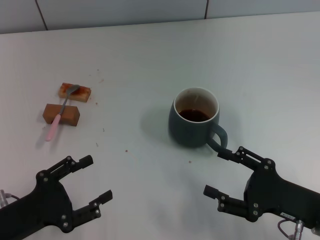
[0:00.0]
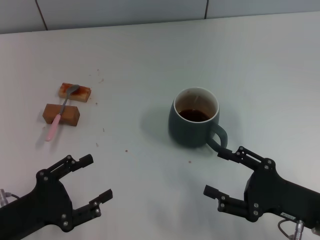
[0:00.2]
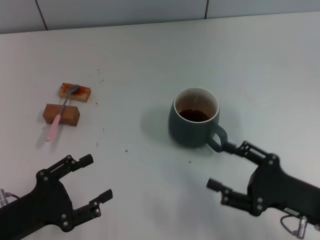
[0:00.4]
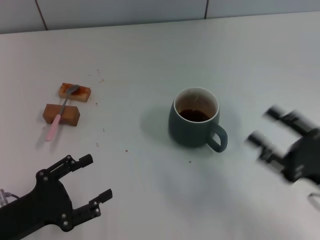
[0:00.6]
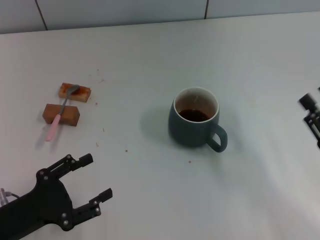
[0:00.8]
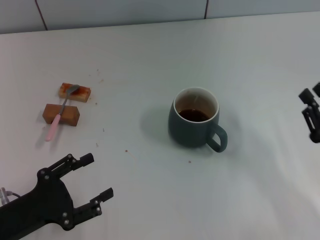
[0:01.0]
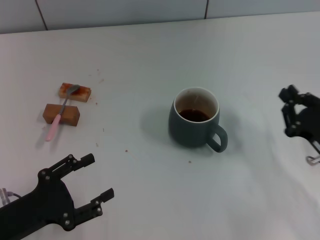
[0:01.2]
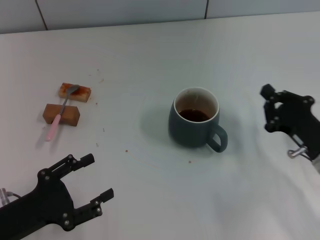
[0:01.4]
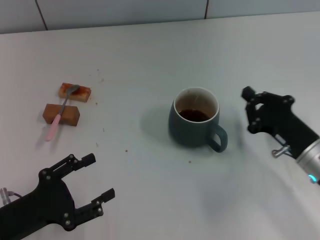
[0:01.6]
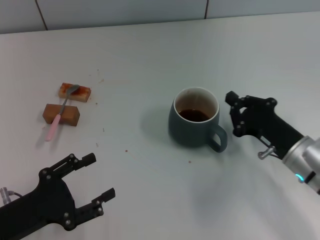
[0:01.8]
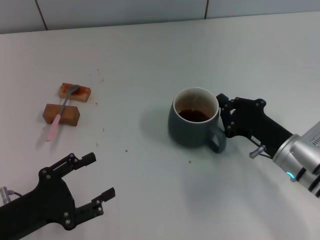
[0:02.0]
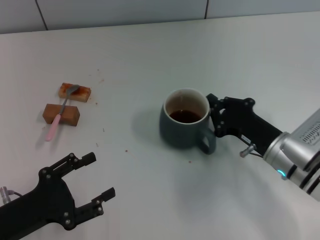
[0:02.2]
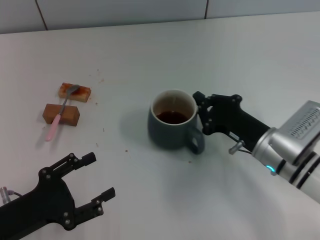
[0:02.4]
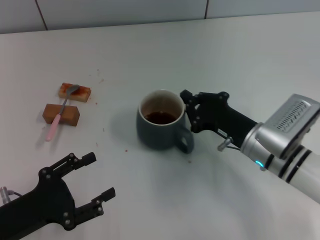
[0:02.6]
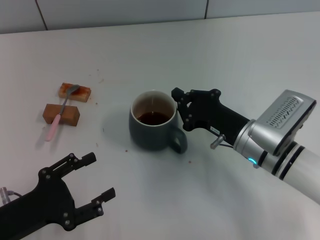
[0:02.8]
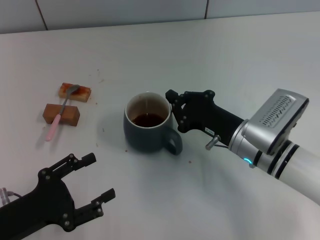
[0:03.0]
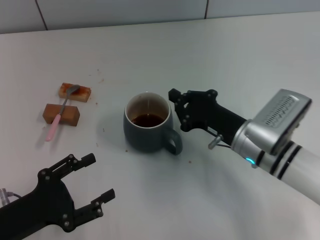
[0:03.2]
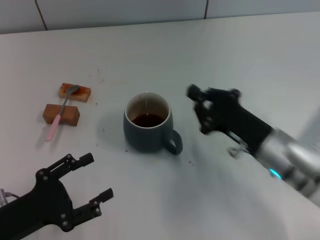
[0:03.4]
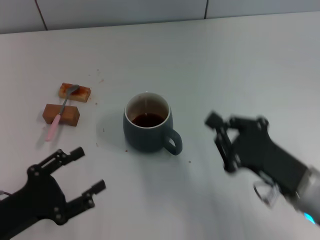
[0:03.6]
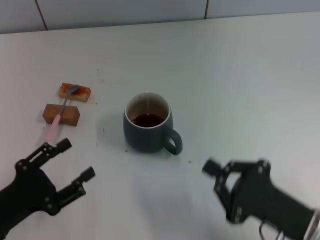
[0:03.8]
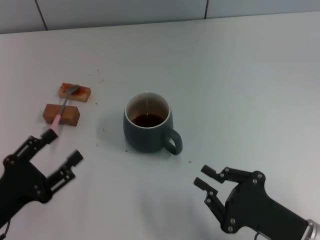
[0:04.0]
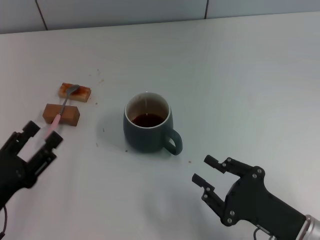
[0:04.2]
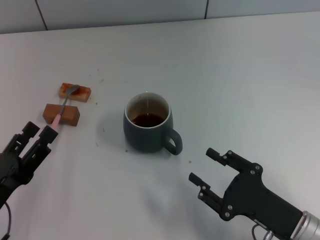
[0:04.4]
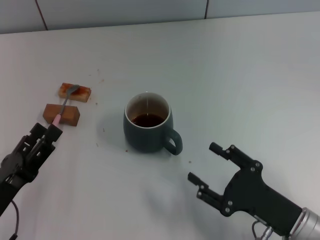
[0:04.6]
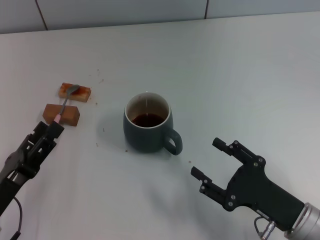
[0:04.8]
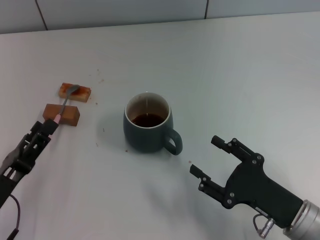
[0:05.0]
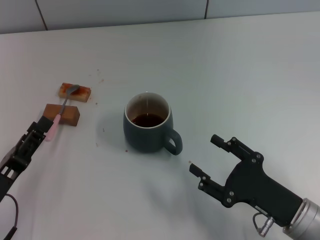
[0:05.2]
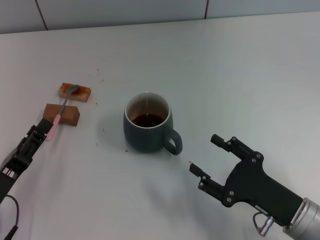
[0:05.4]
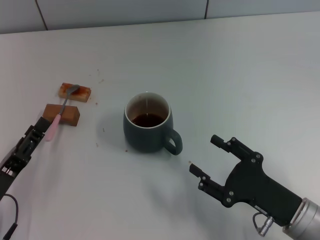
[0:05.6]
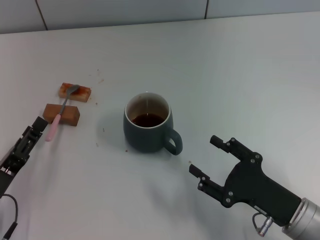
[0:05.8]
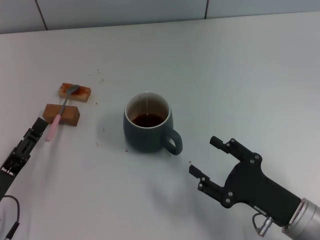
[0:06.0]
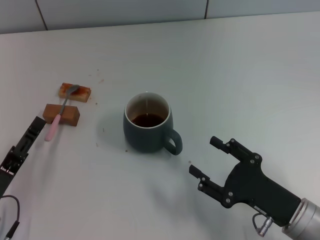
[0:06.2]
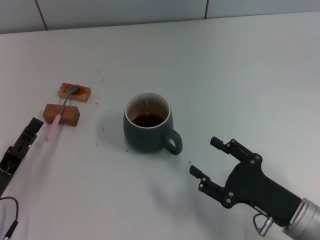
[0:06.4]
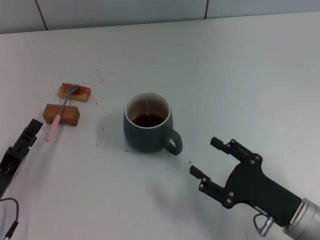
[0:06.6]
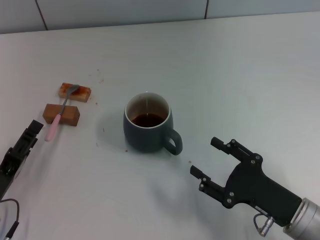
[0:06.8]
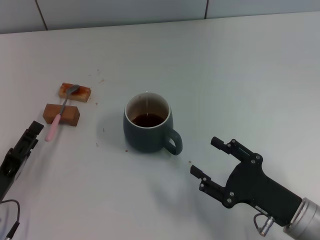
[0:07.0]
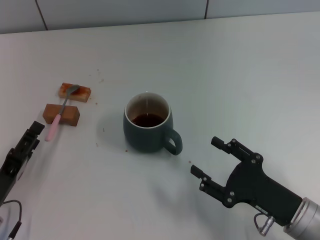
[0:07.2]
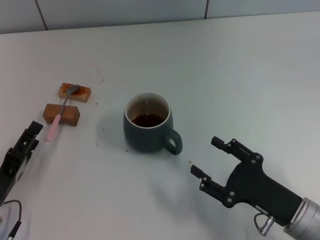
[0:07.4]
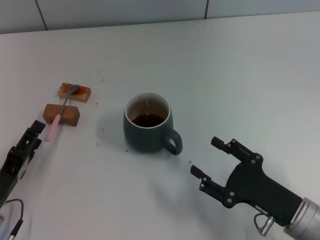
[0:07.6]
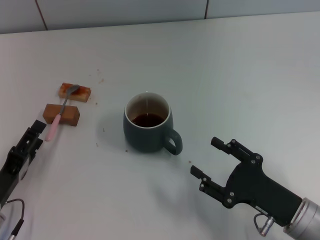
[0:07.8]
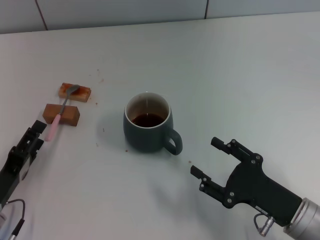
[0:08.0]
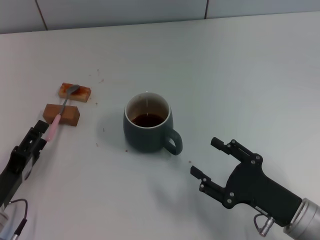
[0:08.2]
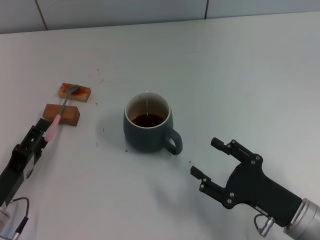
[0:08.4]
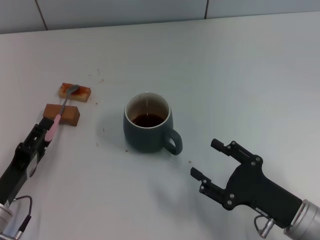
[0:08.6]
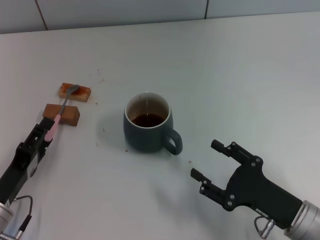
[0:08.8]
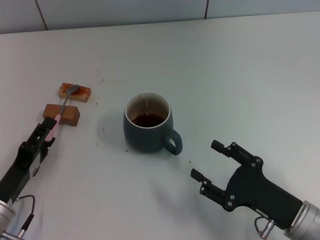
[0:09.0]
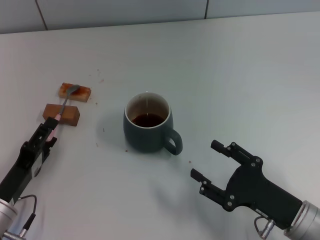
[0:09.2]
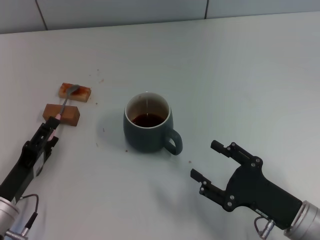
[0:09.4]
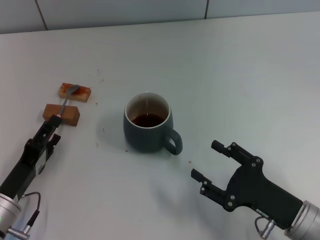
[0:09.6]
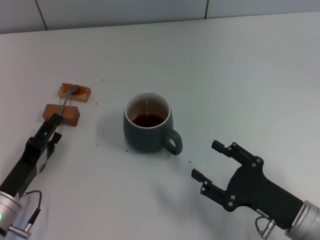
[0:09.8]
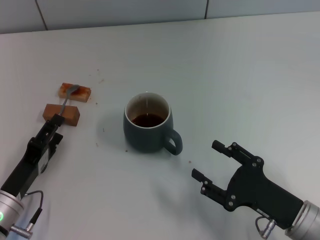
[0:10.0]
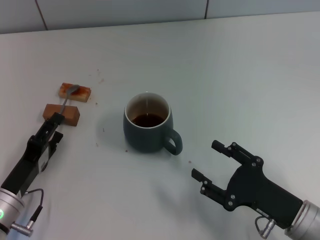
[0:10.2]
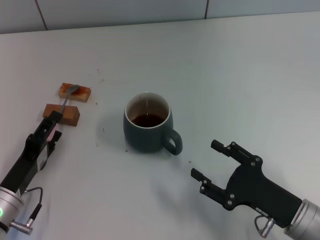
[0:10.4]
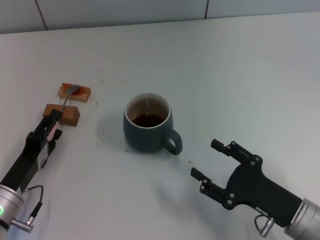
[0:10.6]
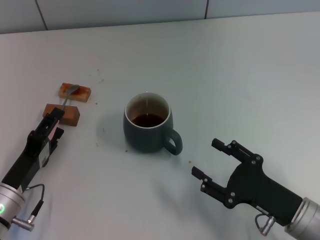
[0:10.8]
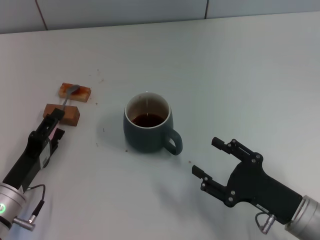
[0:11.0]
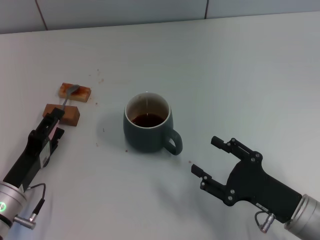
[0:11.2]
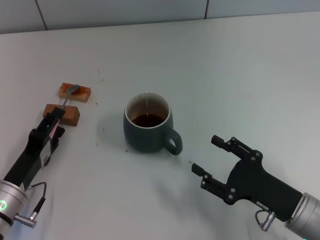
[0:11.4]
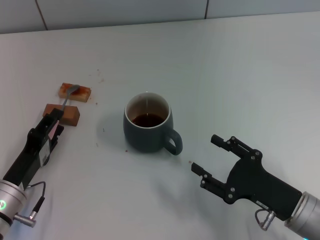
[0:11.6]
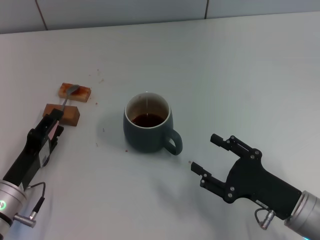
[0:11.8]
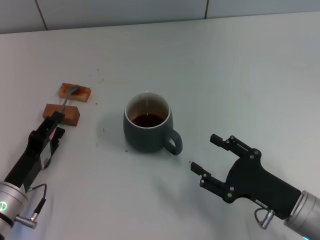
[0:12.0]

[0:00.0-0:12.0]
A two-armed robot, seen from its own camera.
Task of the whole recording: Move the grey cup to the center, lift the pink spoon, stir it three times in the cup, and put the spoon into the cup.
Step, 0:00.0 to 0:03.0: Move the cup with coffee to the center of view with the right gripper.
0:00.0 to 0:01.6: The right gripper travels forward by about 5 cm, and closes.
0:01.6 to 0:03.0: The right gripper travels to the left by roughly 10 cm.
0:03.0 to 0:04.4: The right gripper shifts approximately 15 cm backward, and opens.
0:04.4 to 0:06.0: The right gripper opens its fingers.
0:06.0 to 0:09.0: There are only small adjustments of the grippers.
0:09.0 to 0:10.4: The grippers stay close to where they were, moving slightly.
0:10.4 to 0:12.0: Neither gripper changes place.

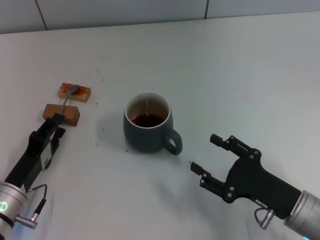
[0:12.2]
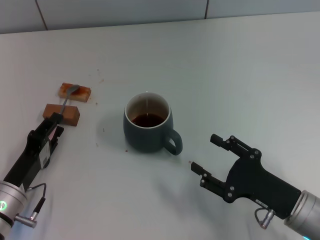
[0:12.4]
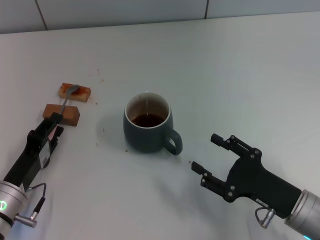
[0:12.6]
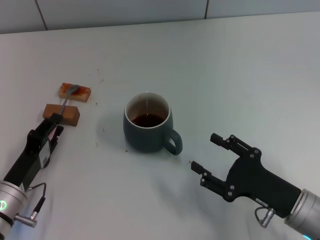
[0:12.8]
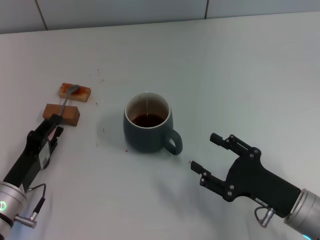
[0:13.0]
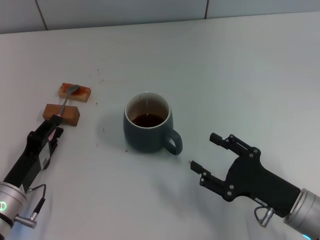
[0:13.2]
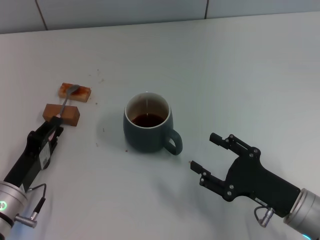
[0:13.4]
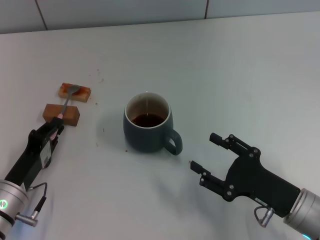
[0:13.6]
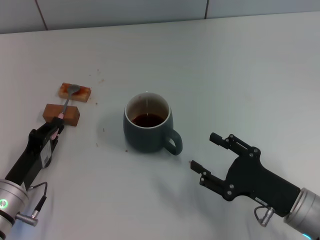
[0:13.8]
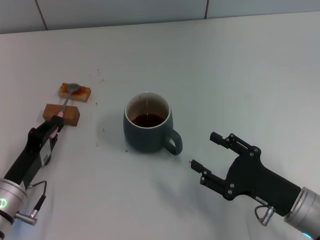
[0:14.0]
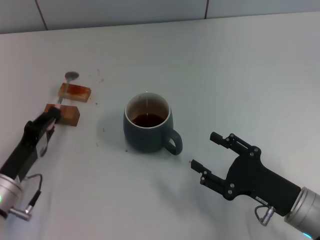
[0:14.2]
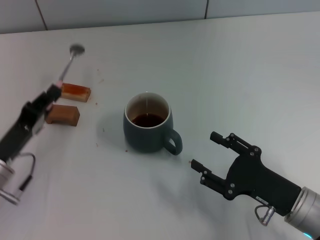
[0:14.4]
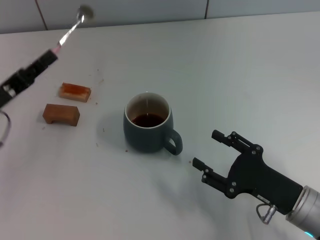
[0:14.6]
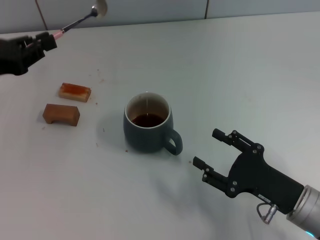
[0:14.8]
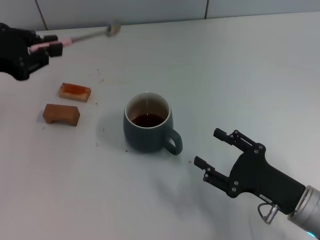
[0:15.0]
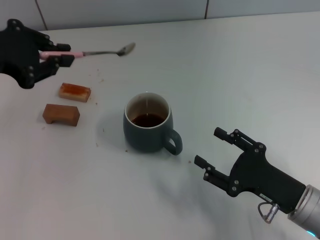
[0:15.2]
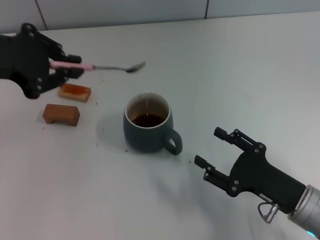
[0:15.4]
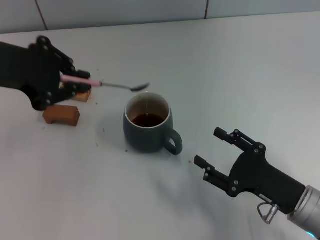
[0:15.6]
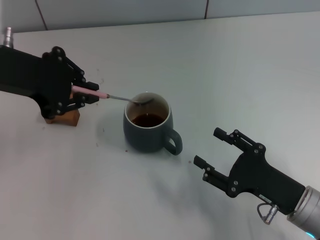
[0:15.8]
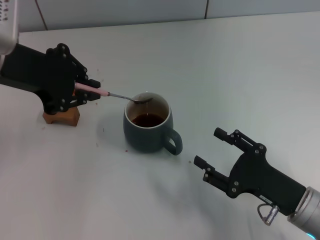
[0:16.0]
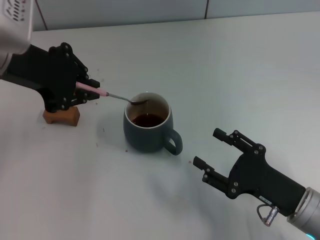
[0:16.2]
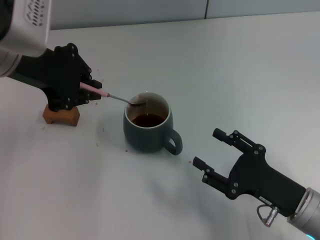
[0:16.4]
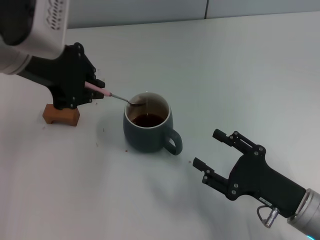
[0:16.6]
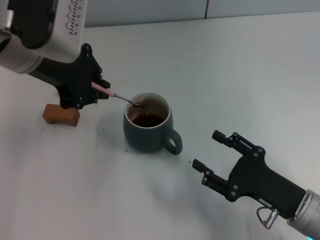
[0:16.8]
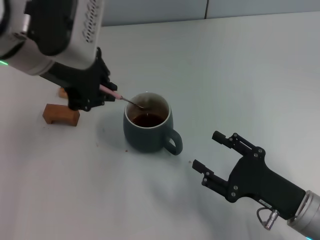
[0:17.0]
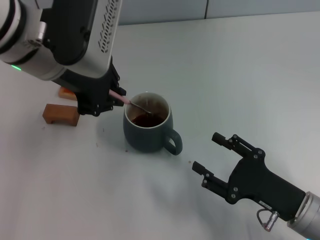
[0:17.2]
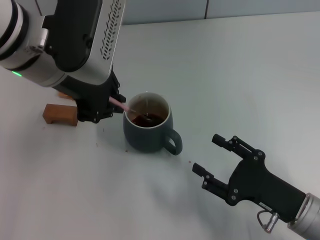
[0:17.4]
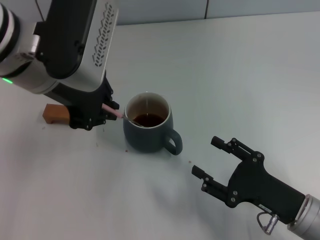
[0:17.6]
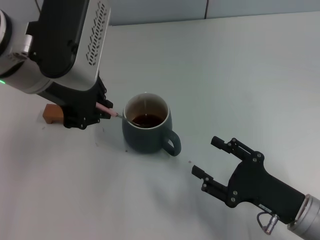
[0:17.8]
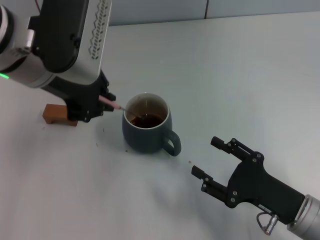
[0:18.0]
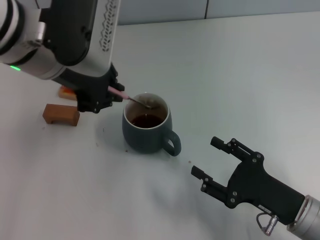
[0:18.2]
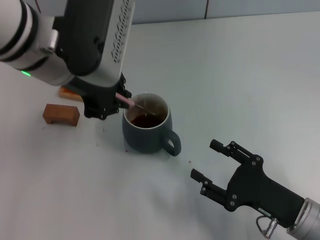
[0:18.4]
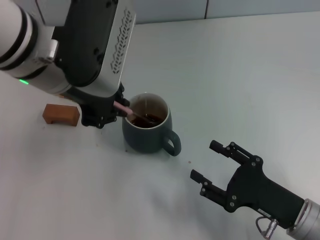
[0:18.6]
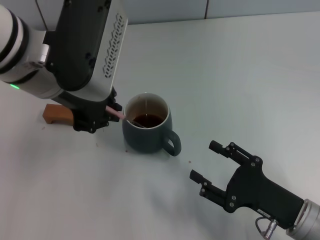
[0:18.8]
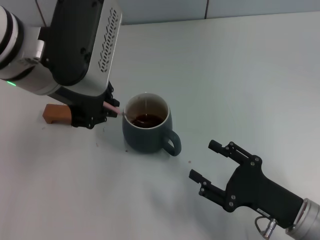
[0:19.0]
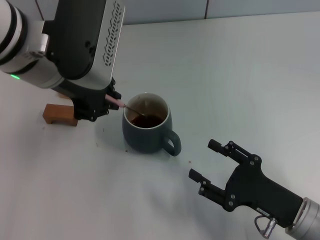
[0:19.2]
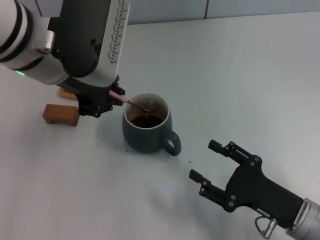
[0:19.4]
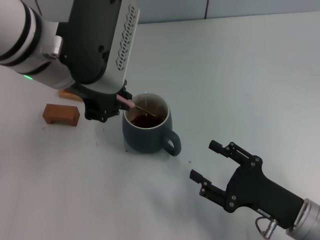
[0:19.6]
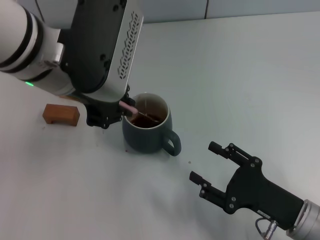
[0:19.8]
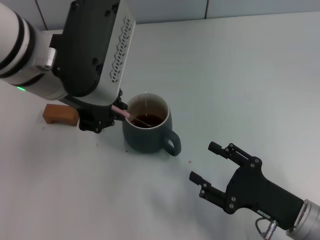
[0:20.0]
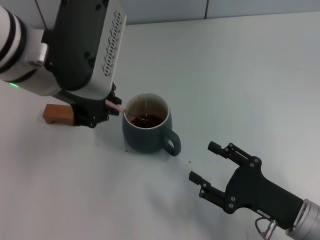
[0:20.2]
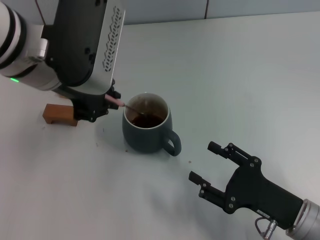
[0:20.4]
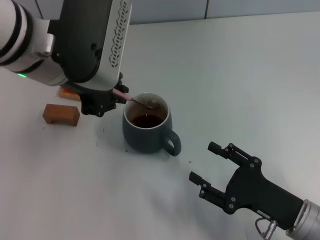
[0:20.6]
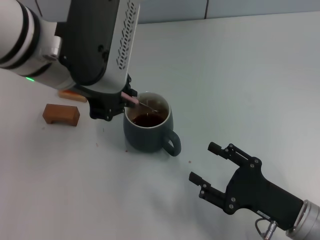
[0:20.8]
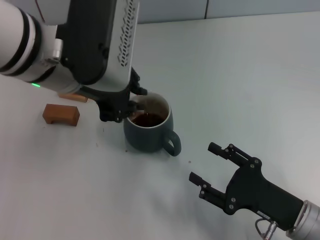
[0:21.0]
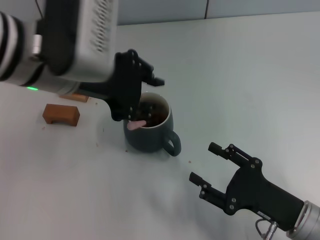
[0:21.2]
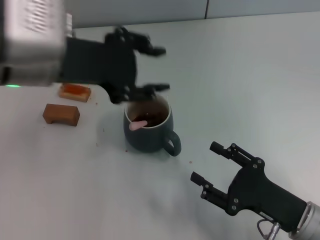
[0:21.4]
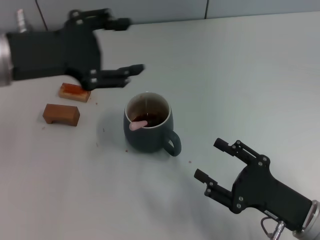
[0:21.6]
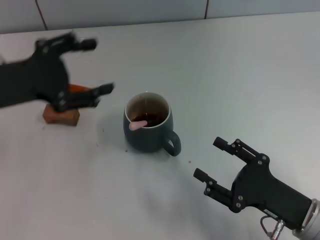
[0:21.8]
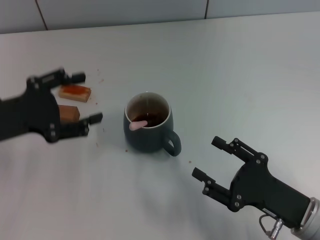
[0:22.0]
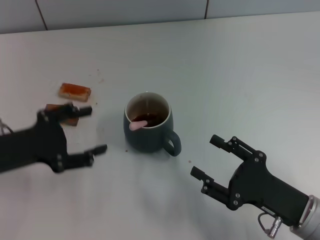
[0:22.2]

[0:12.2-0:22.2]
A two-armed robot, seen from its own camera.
Task of the whole recording: Move the grey cup to the center, lift the pink spoon, stir it three times in the cup, and put the spoon into the cup.
Step, 0:14.2 to 0:21.0: Stir the coffee in the cup with the left gripper.
0:12.2 to 0:13.6: The left gripper closes up.
0:13.6 to 0:15.0: The left gripper travels upward and forward by approximately 25 cm.
0:15.0 to 0:16.4: The left gripper heads to the right and upward, covering about 10 cm.
0:16.4 to 0:18.0: The grippers move only a little.
0:18.0 to 0:20.8: The grippers move only a little.
0:20.8 to 0:22.2: The left gripper is displaced to the left and downward by about 20 cm, and opens up.
